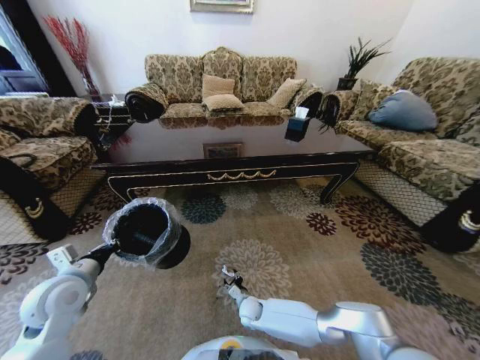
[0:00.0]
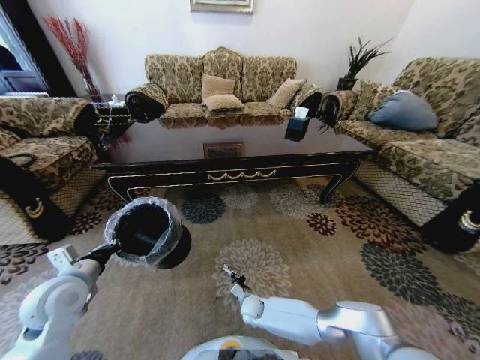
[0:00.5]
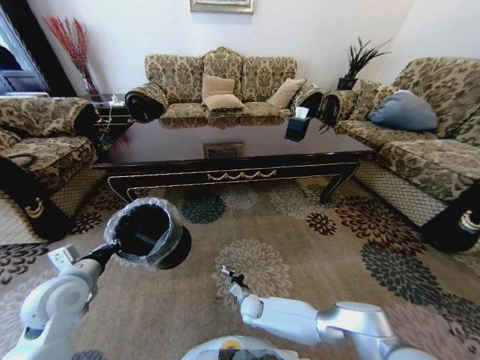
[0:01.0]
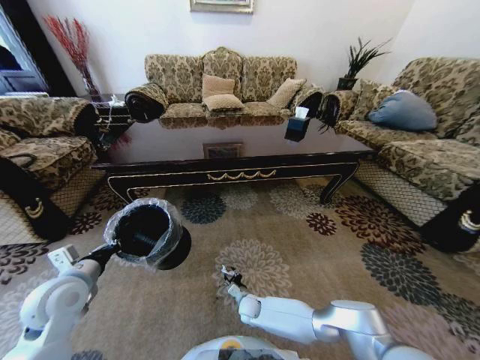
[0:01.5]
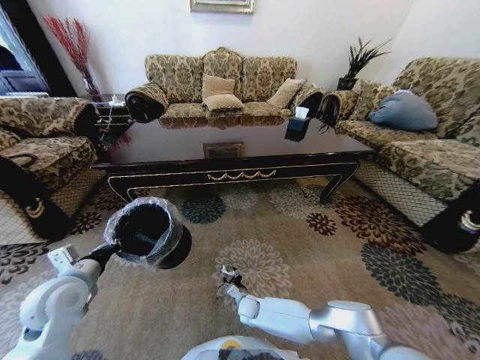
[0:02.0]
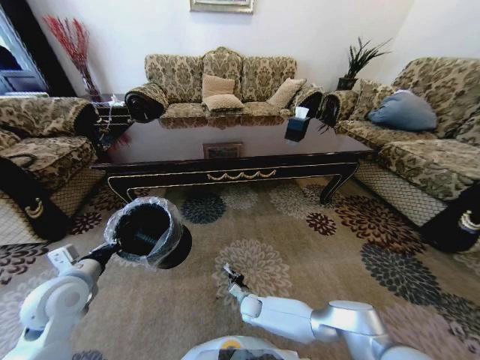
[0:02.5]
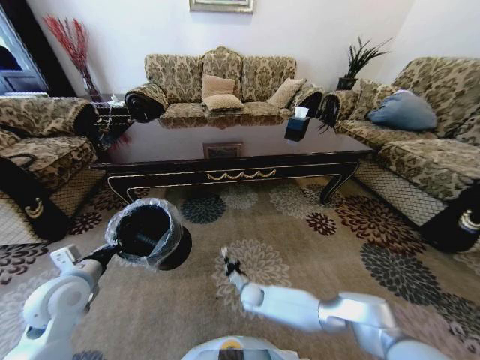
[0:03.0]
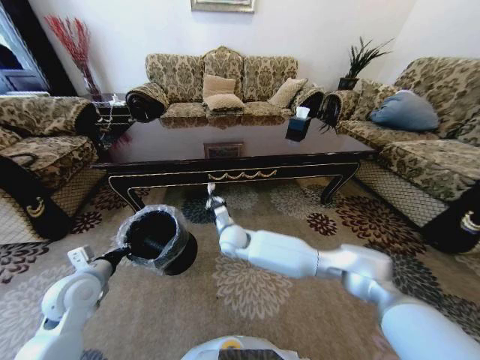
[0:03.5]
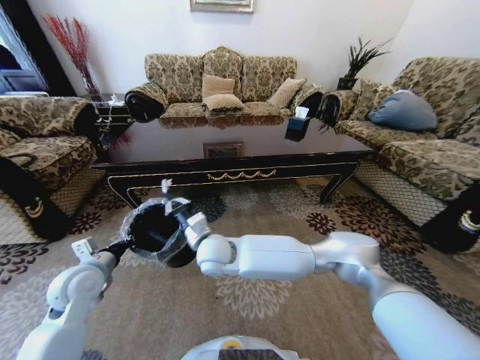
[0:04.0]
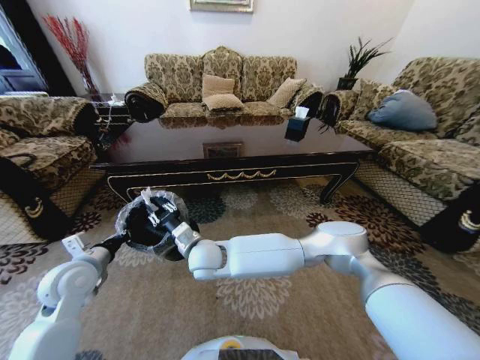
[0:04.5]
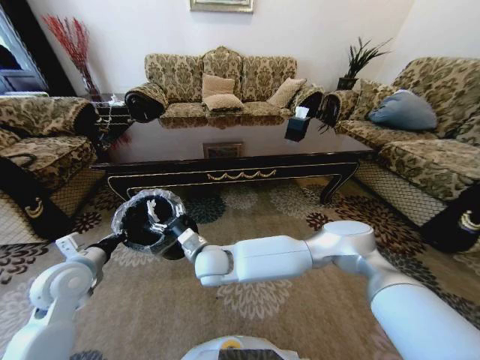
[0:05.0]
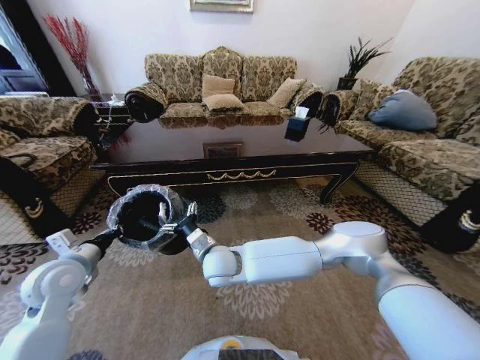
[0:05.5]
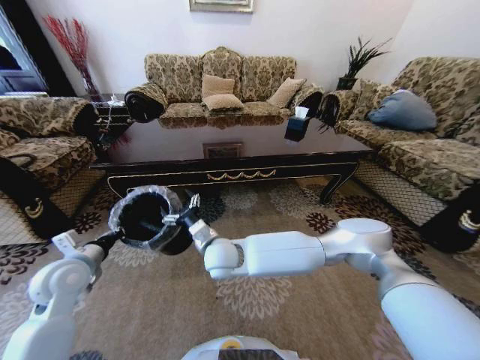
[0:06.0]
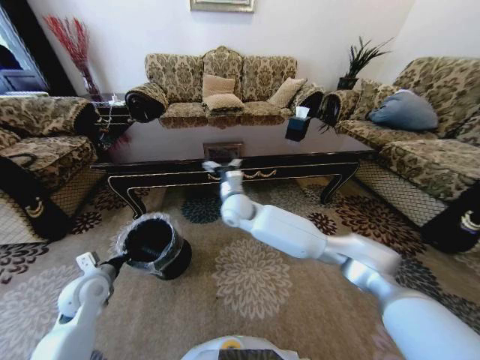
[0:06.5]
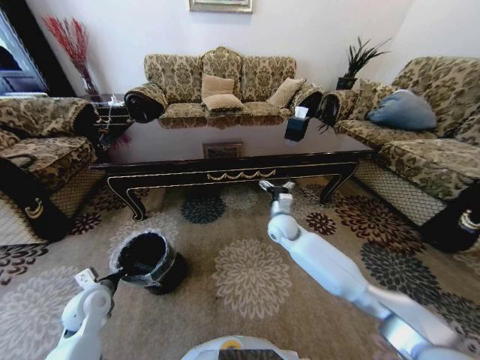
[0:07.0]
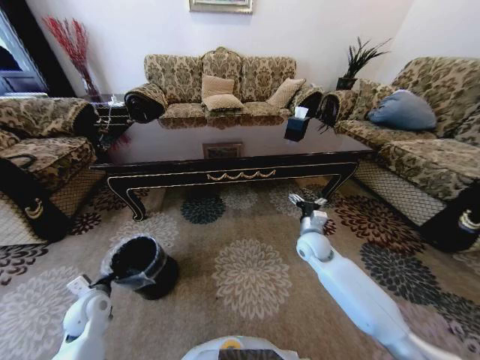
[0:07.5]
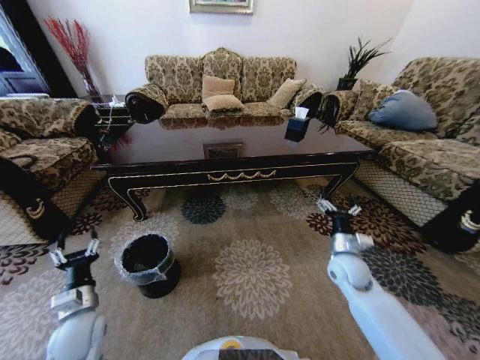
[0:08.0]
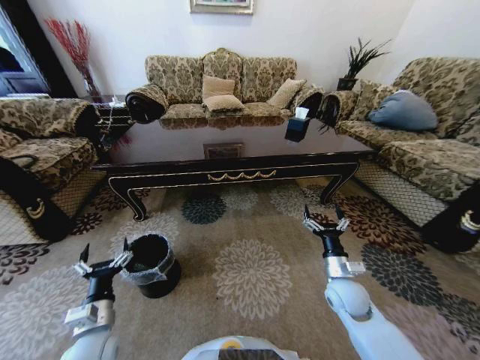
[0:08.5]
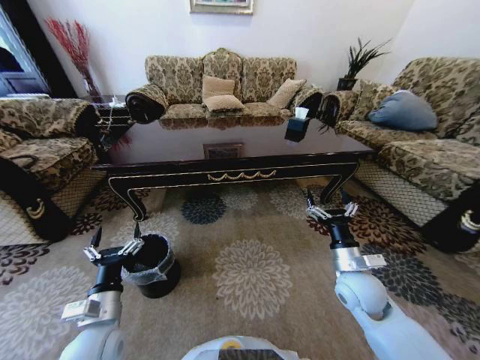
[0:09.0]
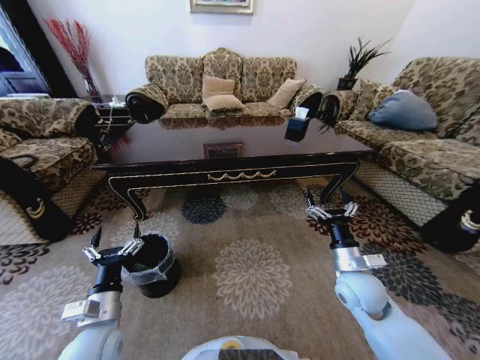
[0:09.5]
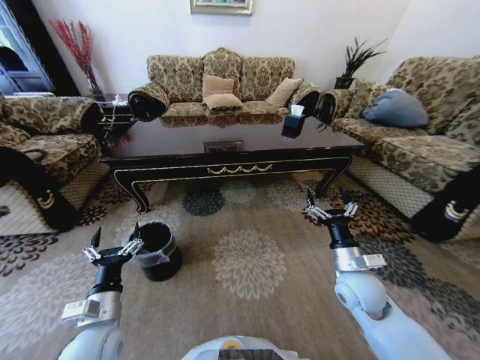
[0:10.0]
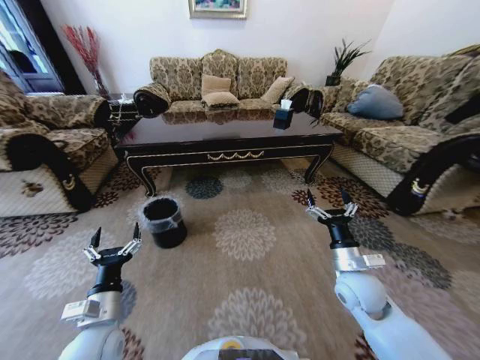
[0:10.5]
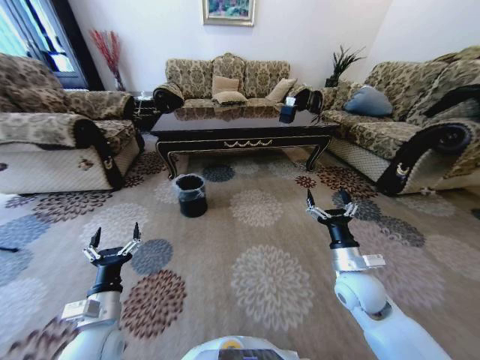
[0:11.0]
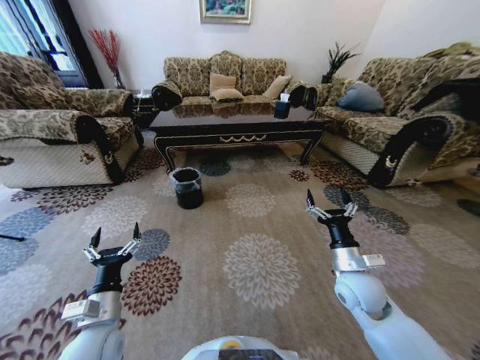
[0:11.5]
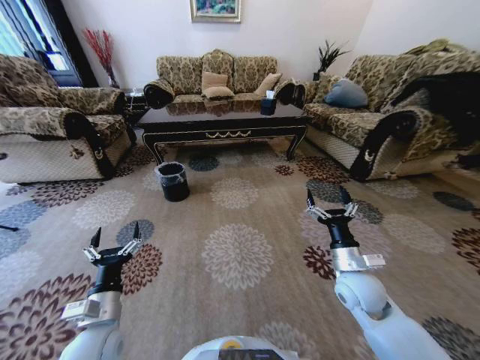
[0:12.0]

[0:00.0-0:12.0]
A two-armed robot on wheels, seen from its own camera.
Task of the whole recording: Move to the front of the table and pick up the trash from the floor, then place it into the trash bin.
0:00.0 to 0:02.0: The right gripper closes, then reopens.
0:02.0 to 0:04.0: The right gripper shifts approximately 35 cm upward, and closes.
0:04.0 to 0:06.0: The right gripper opens up.
0:06.0 to 0:08.0: The left gripper moves downward and backward, approximately 15 cm, and opens; the right gripper goes some 35 cm to the right.
0:08.0 to 0:10.0: The right gripper moves backward, some 5 cm, while the left gripper moves to the right, roughly 10 cm, and opens up.

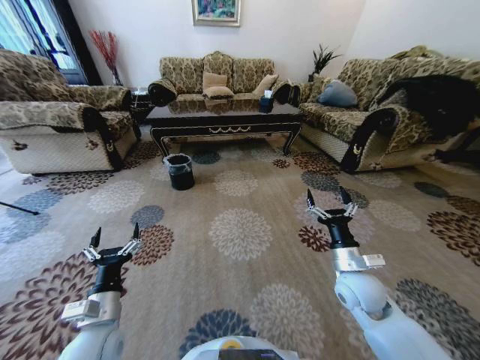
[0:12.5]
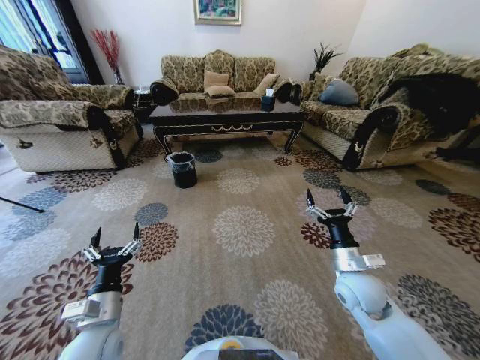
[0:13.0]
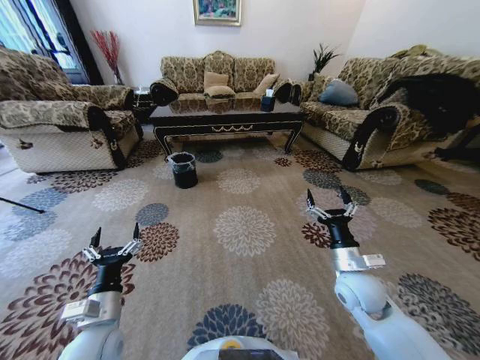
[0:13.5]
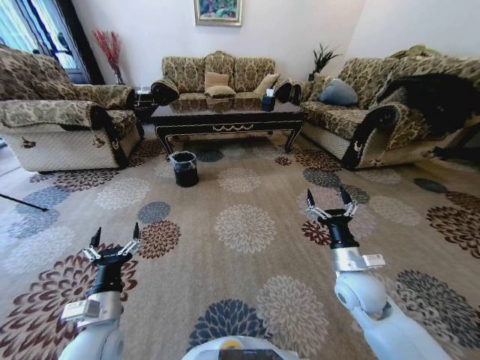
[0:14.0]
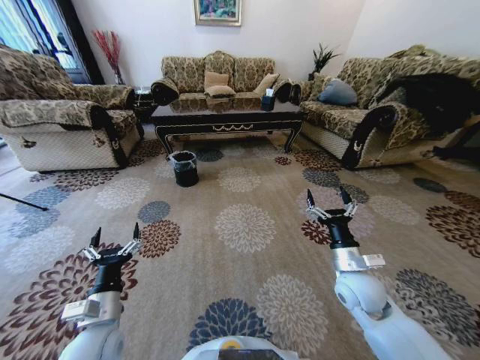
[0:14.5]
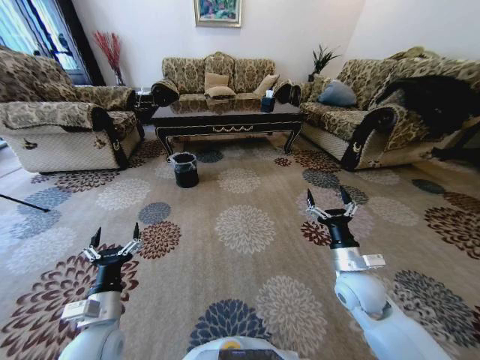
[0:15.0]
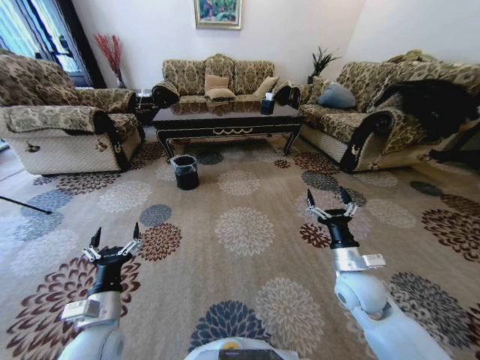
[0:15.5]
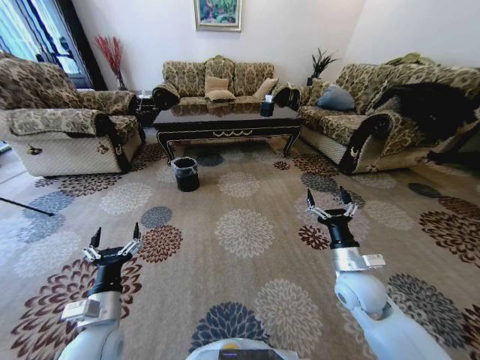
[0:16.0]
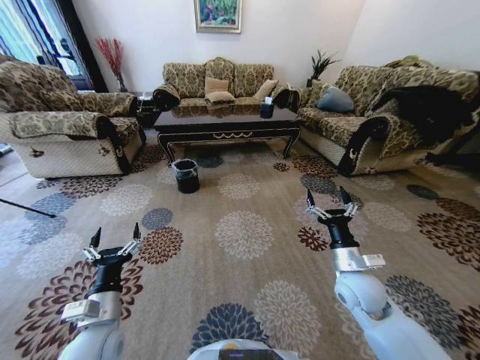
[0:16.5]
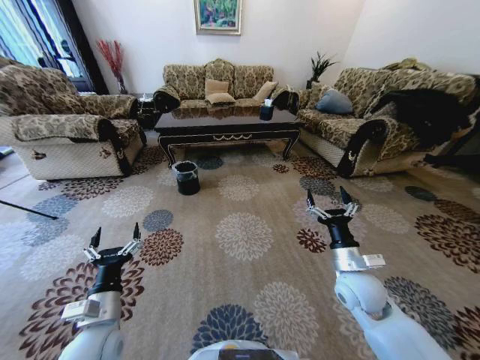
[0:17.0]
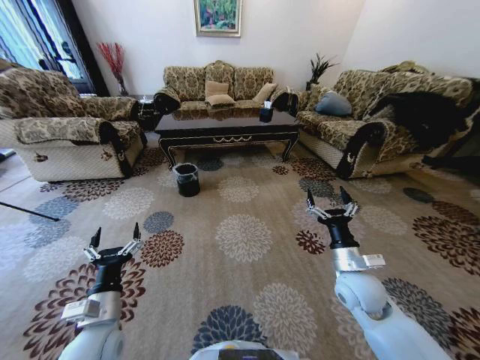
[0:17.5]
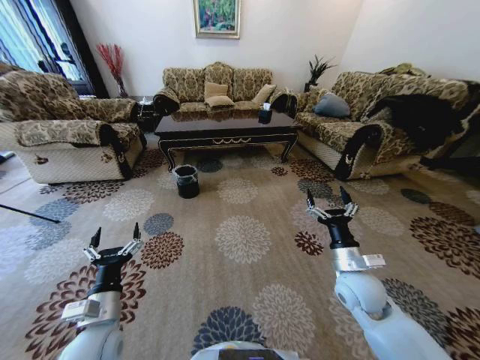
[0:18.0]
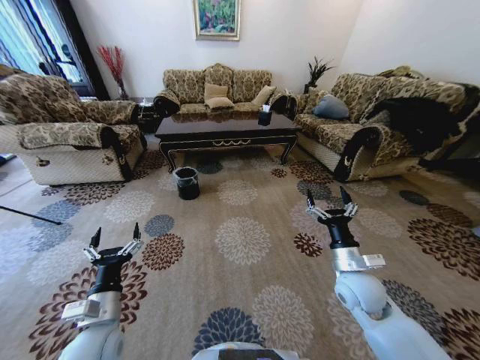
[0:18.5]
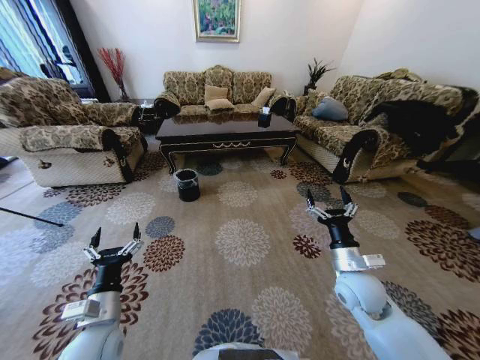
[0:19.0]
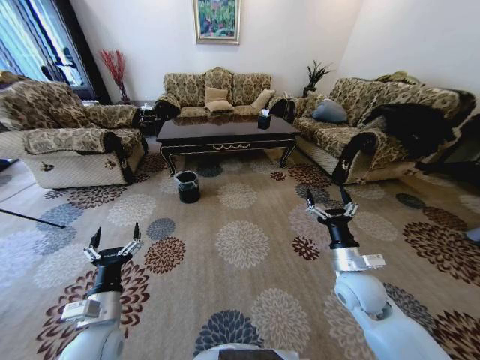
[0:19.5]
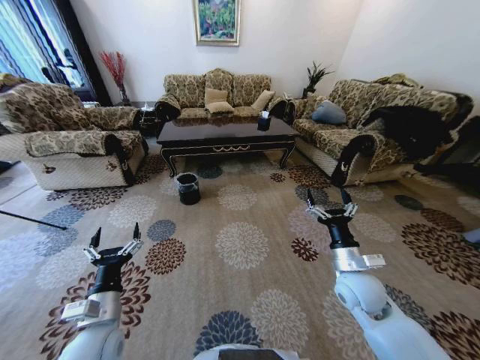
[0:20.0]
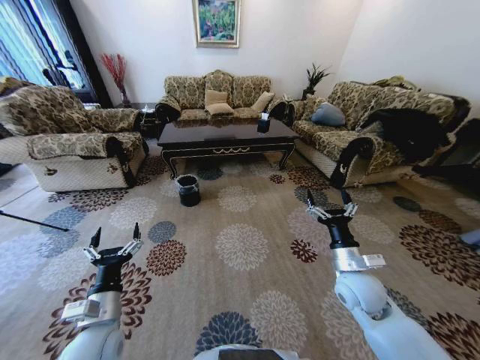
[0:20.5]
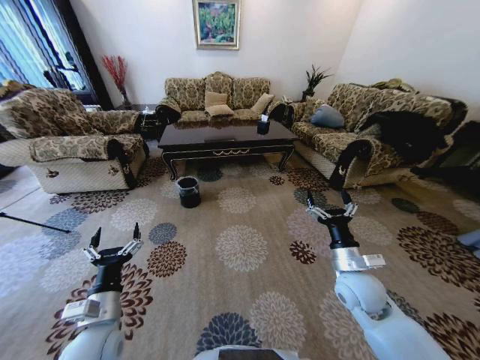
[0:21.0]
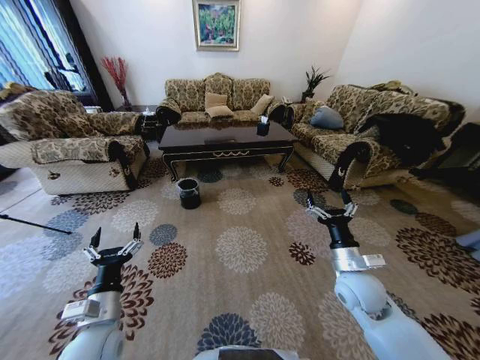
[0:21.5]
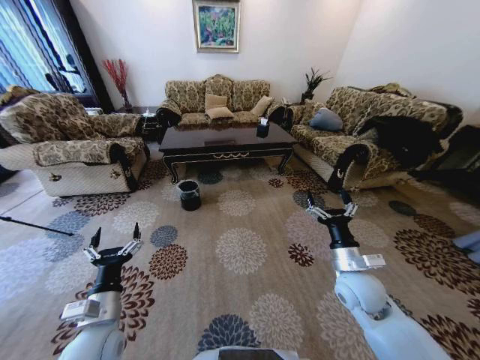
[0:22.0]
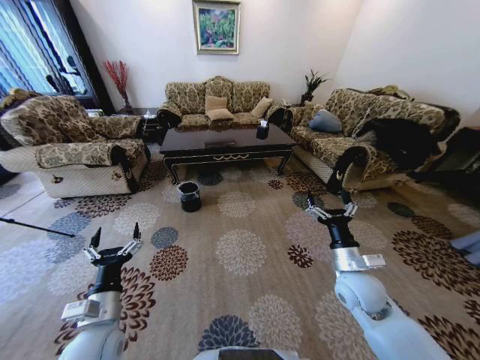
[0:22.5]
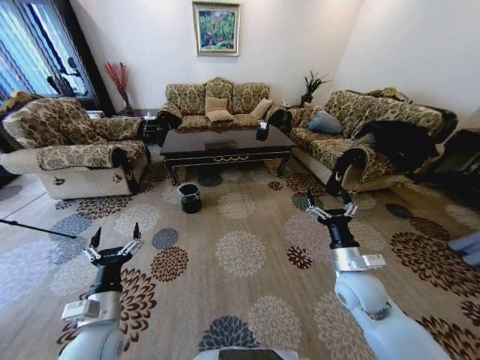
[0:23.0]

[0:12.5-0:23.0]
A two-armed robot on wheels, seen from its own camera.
Task of the whole recording: Move to the front of the table and pick up the trash from the floor, then place it into the trash bin.
0:12.5 to 0:14.5: Both grippers stay about where they are.
